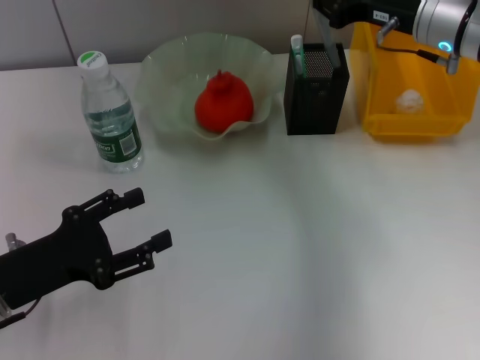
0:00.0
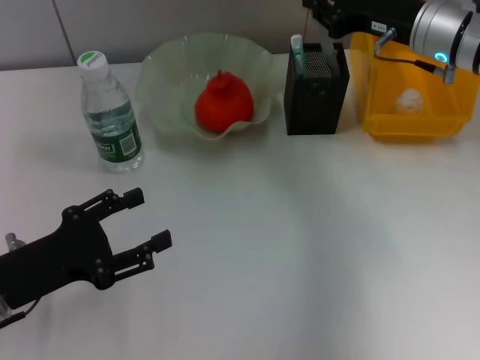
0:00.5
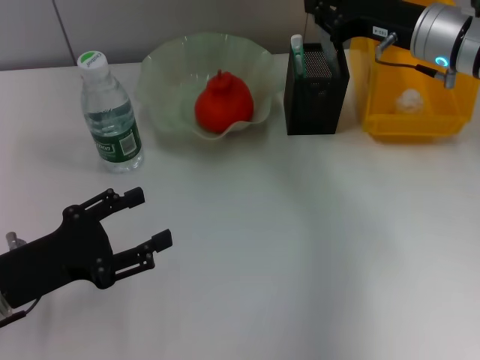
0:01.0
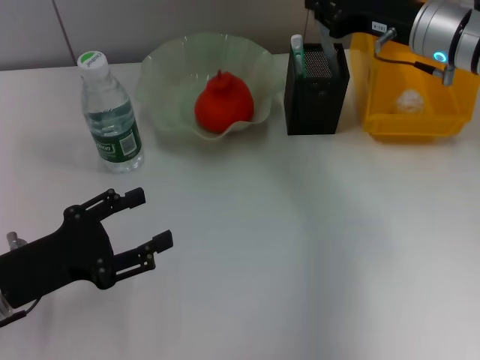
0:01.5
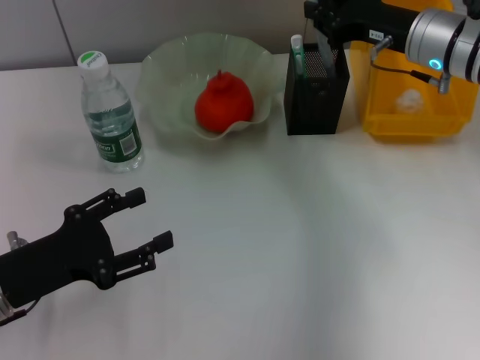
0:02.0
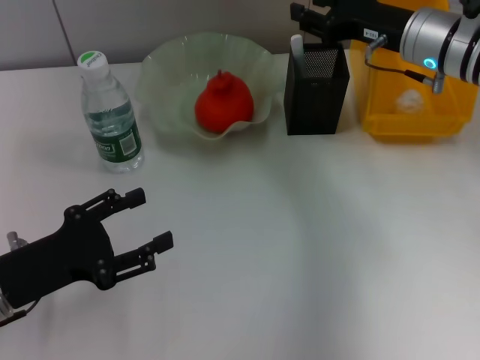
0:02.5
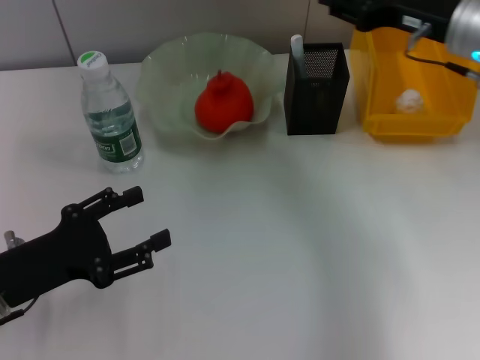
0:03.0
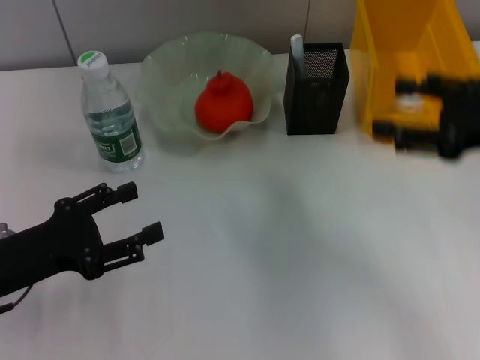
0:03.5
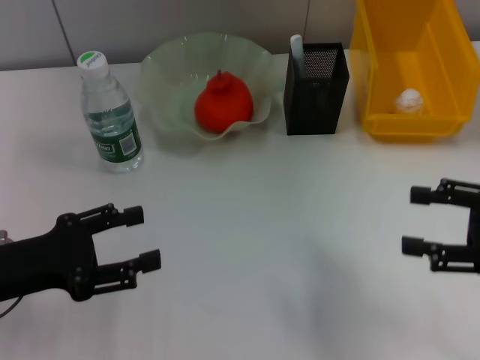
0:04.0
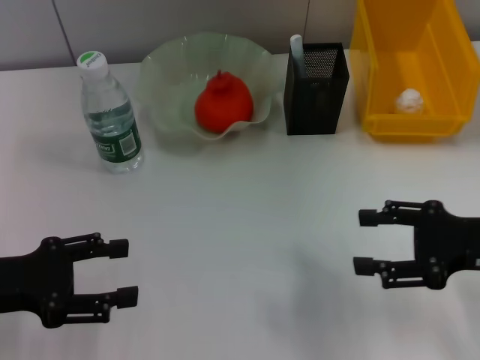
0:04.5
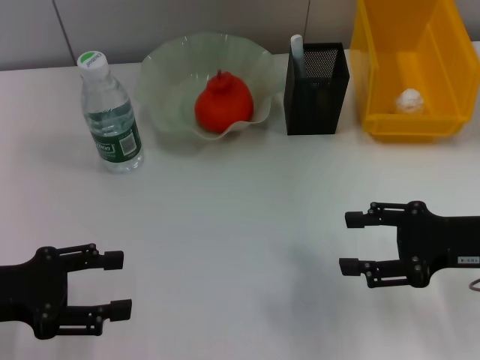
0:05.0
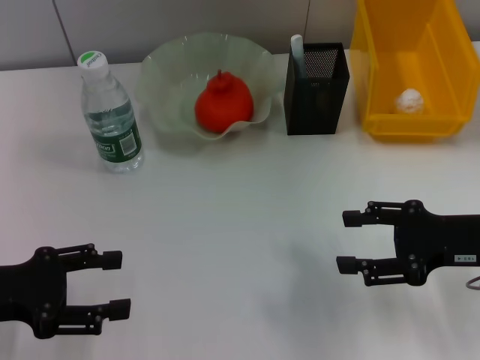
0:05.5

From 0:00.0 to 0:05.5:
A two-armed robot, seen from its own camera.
Step, from 0:00.0 to 0:02.0: Place the gray glue into the pen holder with the right hand.
From 0:00.0 to 0:02.0: There are only small adjustments of the grippers.
From 0:02.0 to 0:03.5: The right gripper shifts approximately 15 cm backward and to the right, and opens.
From 0:03.5 to 0:05.5: The right gripper moves downward, about 10 cm.
